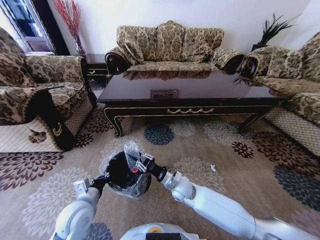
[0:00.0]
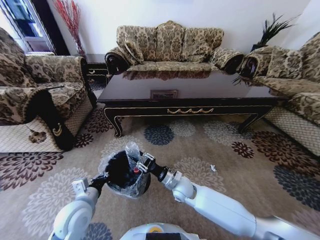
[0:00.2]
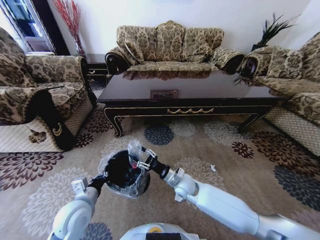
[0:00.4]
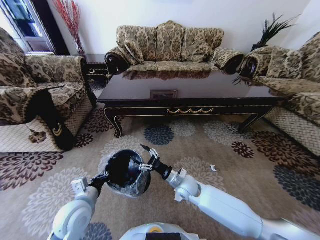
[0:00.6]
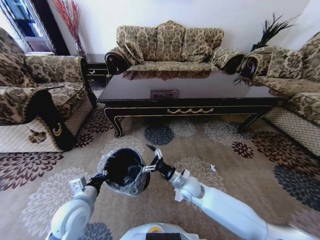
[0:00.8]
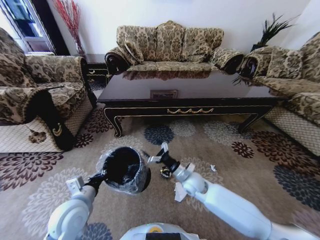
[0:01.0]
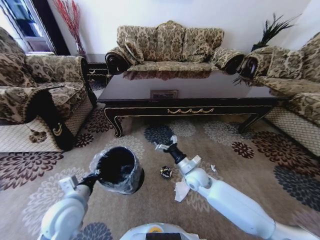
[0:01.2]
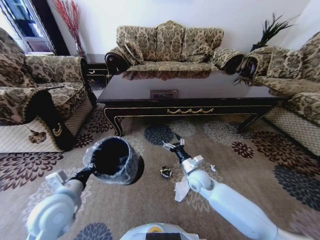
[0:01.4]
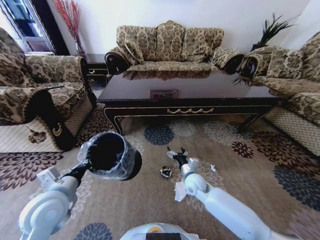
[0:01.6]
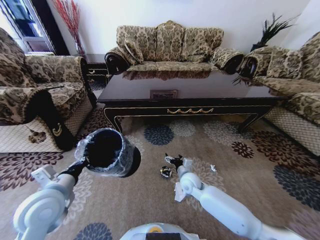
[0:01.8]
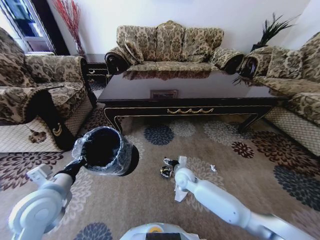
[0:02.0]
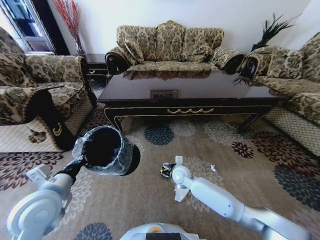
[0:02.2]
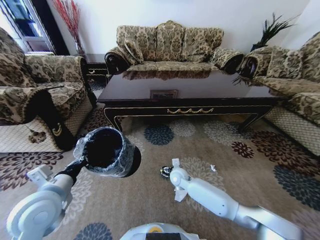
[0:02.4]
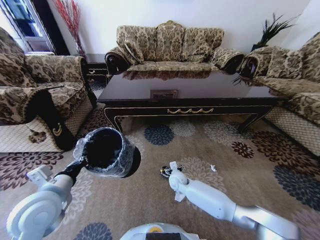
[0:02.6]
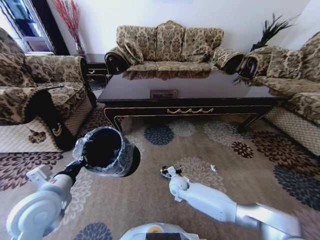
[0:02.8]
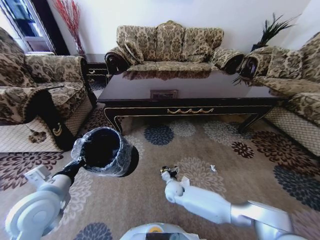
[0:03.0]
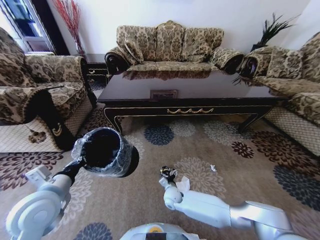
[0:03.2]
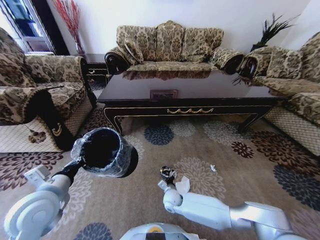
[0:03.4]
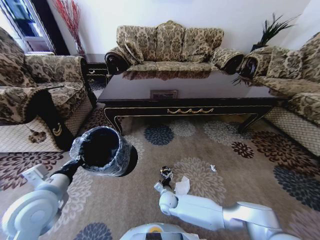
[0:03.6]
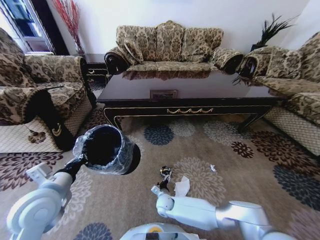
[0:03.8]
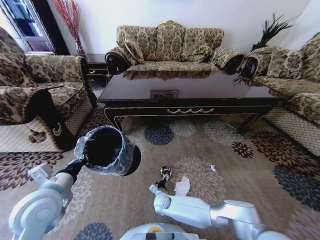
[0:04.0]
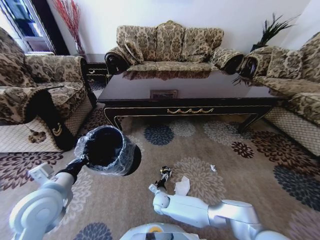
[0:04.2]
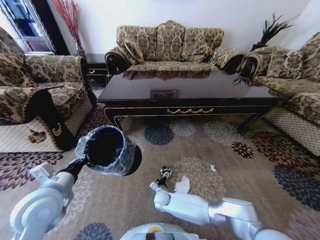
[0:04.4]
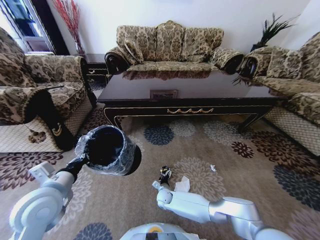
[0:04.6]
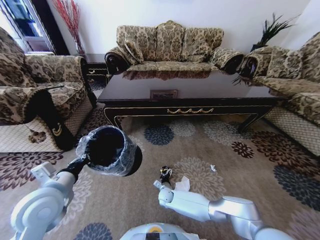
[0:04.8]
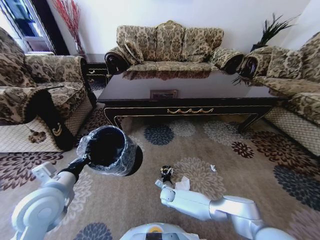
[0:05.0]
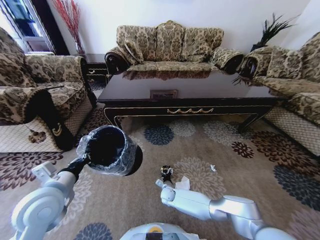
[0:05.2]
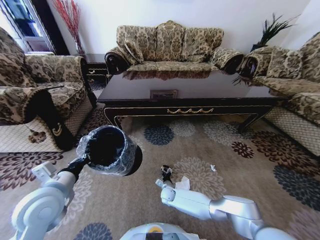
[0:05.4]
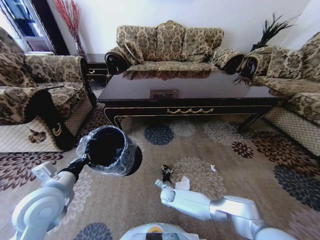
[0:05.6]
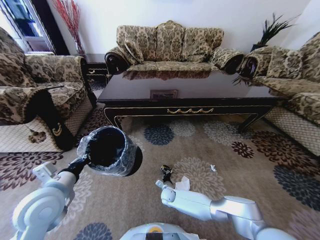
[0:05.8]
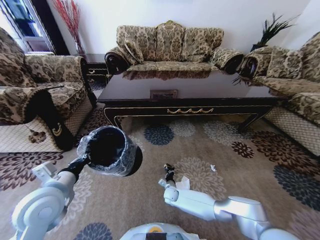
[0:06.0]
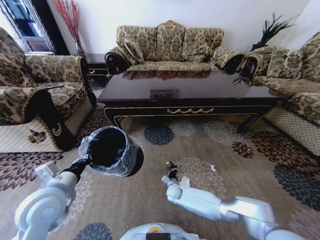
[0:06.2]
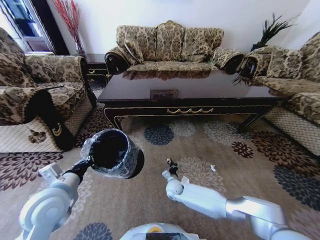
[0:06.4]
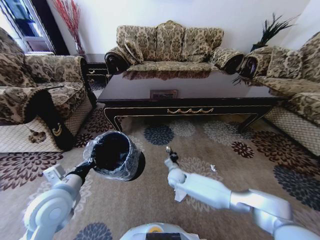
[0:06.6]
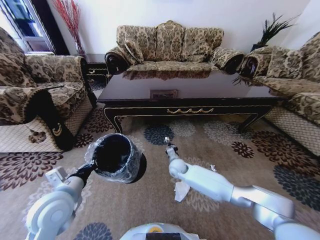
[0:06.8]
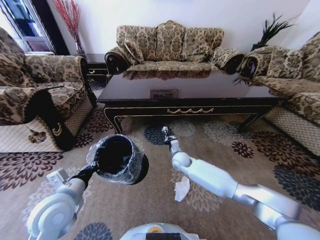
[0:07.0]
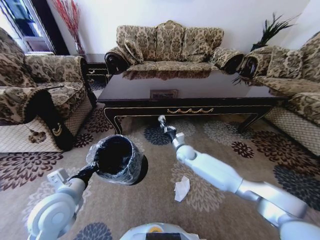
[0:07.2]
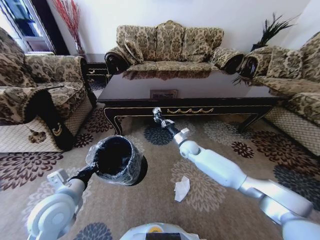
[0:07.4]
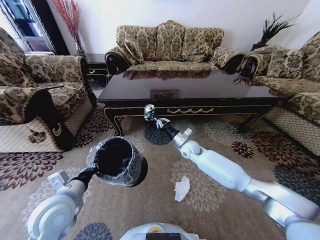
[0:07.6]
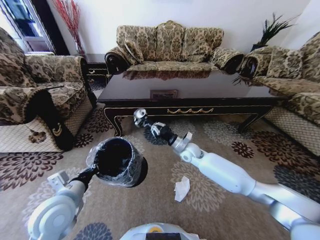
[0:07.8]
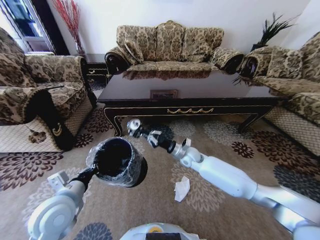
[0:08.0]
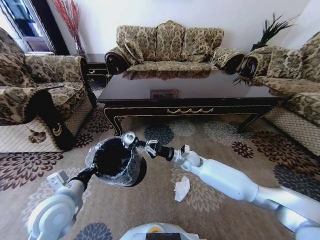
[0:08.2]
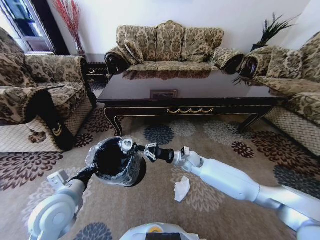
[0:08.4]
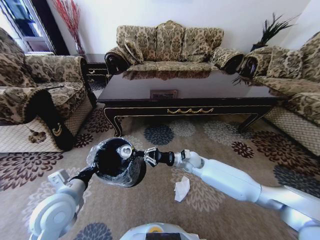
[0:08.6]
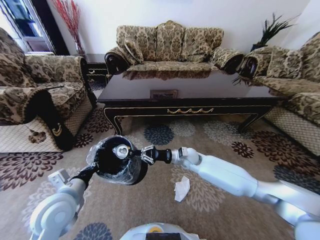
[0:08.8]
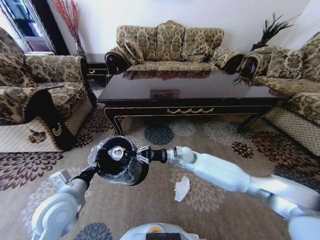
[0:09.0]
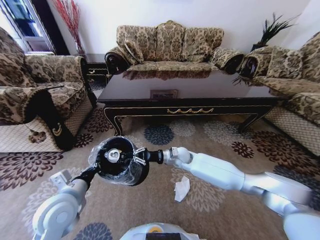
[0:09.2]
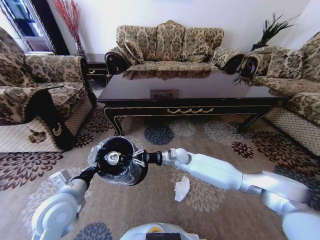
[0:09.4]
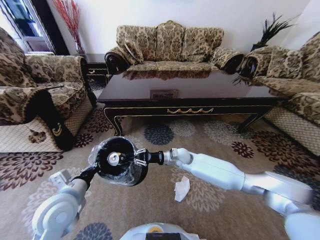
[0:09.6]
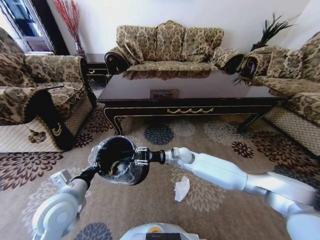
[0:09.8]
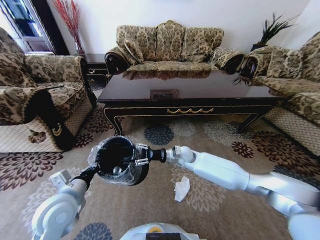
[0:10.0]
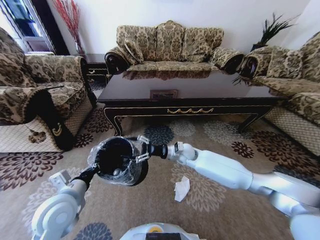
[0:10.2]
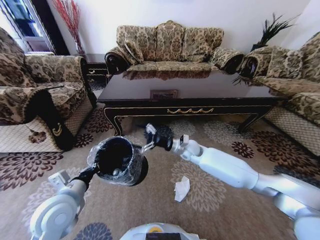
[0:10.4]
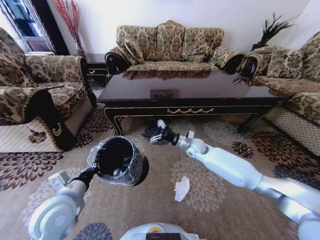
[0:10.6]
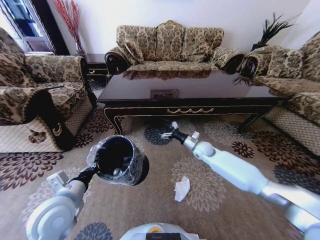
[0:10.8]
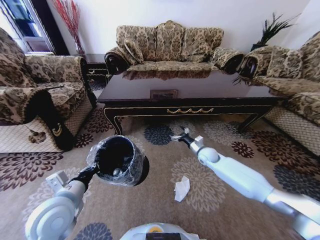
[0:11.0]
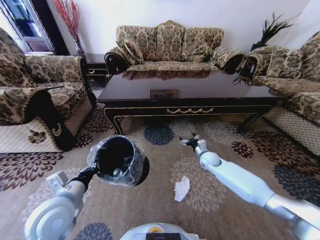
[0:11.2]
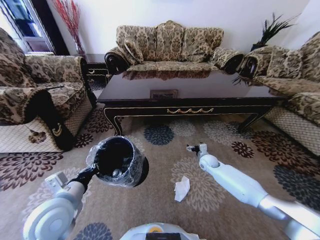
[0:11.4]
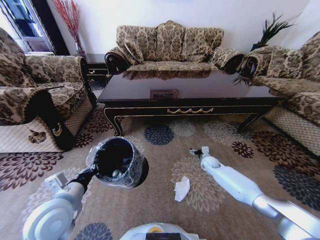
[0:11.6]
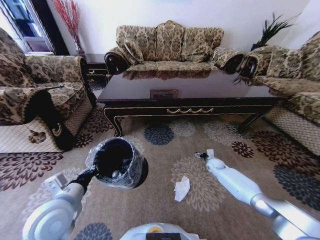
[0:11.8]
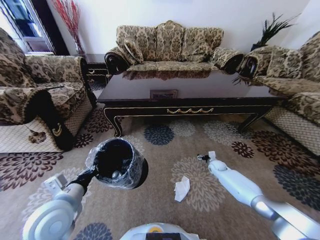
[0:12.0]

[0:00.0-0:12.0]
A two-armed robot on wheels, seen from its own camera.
Task of the whole recording: Move to the front of the table and pick up the trash from the floor, then place it into the trash bin.
0:00.0 to 0:01.6: The right gripper goes about 5 cm to the right, and opens; the left gripper is displaced upward by about 10 cm.
0:01.6 to 0:03.0: The right gripper is displaced downward and to the left by roughly 15 cm.
0:03.0 to 0:04.4: The right gripper travels downward and to the left by some 10 cm.
0:04.4 to 0:06.0: The right gripper goes some 5 cm to the right, and closes its fingers.
0:06.0 to 0:07.6: The right gripper is displaced upward and forward by roughly 30 cm.
0:07.6 to 0:09.0: The right gripper shifts by approximately 5 cm.
0:09.0 to 0:10.4: The right gripper opens its fingers.
0:10.4 to 0:12.0: The right gripper travels to the right and downward by about 35 cm.

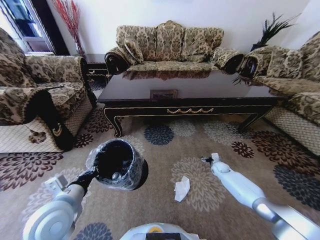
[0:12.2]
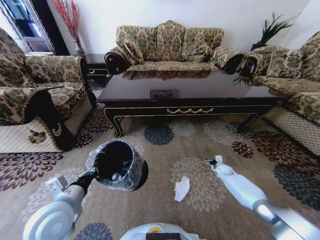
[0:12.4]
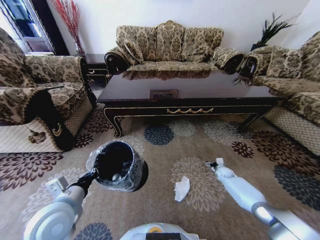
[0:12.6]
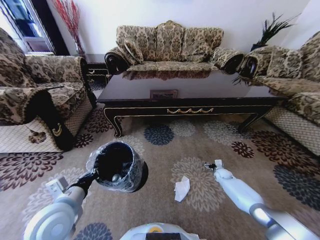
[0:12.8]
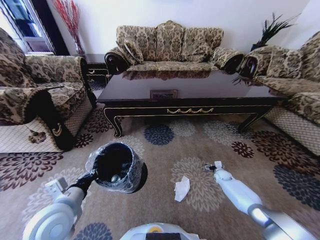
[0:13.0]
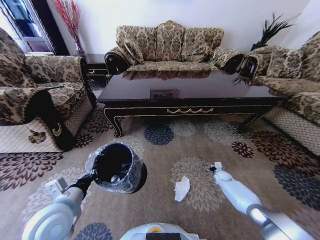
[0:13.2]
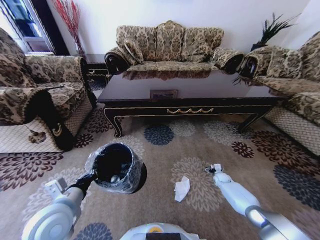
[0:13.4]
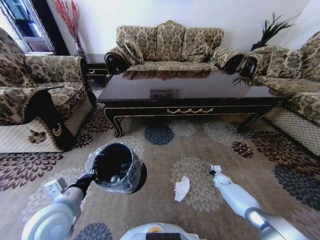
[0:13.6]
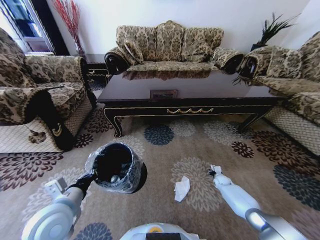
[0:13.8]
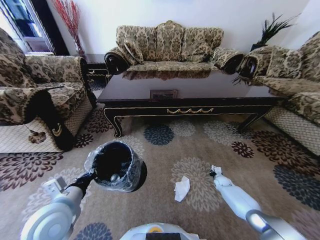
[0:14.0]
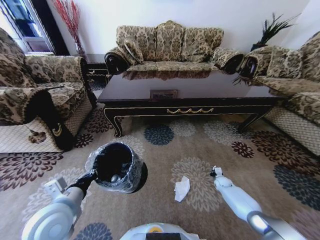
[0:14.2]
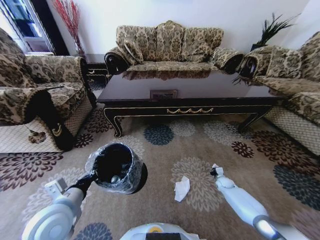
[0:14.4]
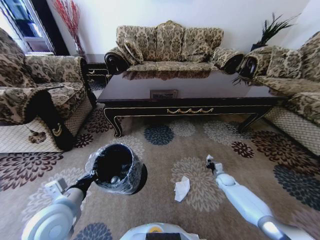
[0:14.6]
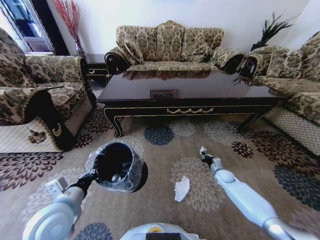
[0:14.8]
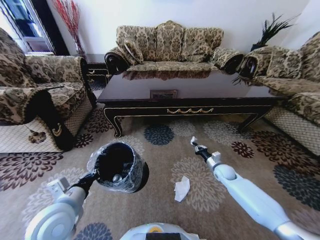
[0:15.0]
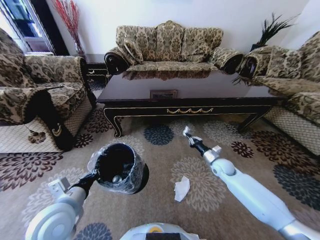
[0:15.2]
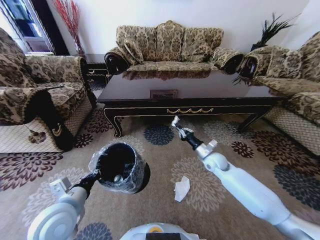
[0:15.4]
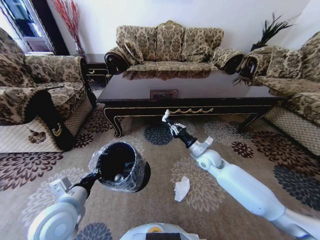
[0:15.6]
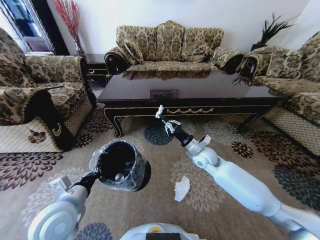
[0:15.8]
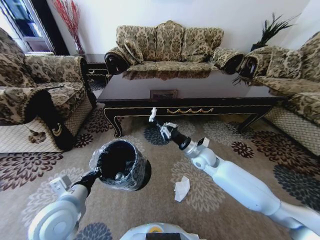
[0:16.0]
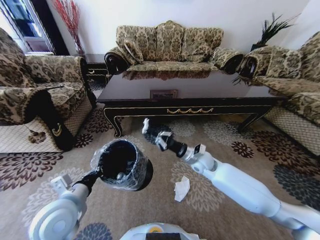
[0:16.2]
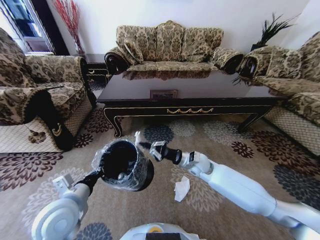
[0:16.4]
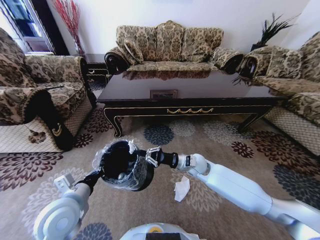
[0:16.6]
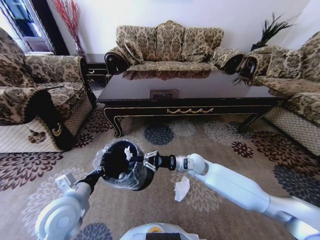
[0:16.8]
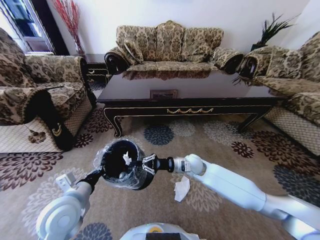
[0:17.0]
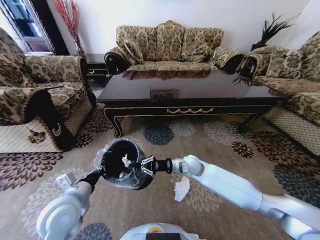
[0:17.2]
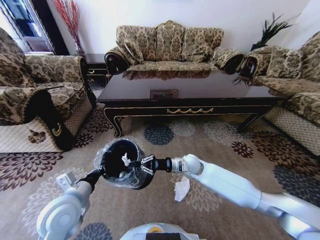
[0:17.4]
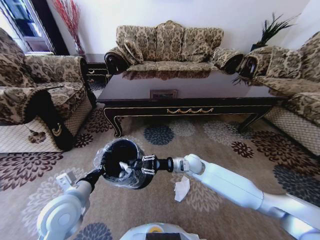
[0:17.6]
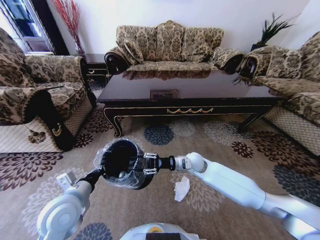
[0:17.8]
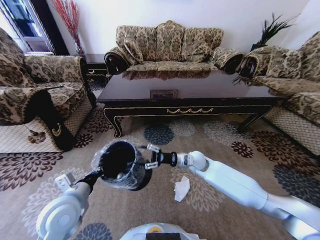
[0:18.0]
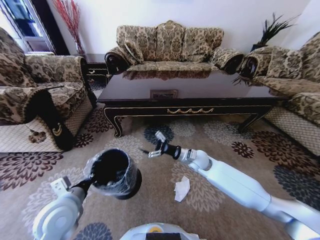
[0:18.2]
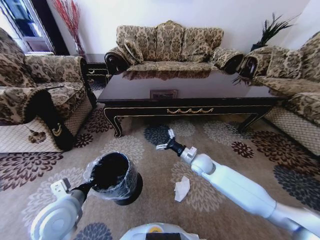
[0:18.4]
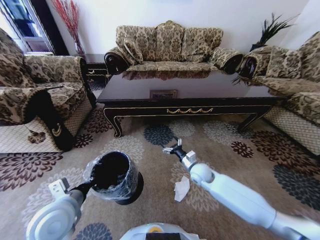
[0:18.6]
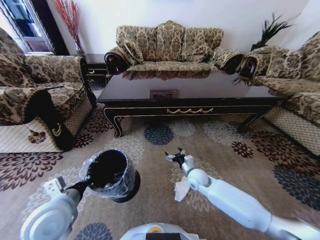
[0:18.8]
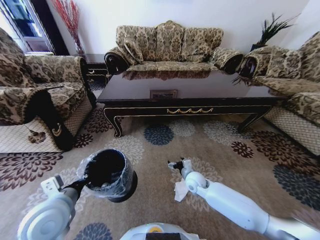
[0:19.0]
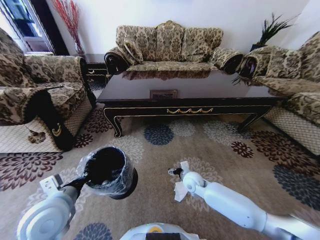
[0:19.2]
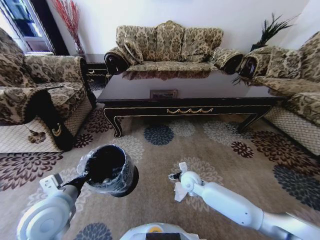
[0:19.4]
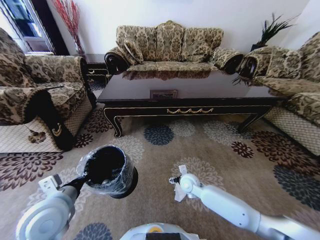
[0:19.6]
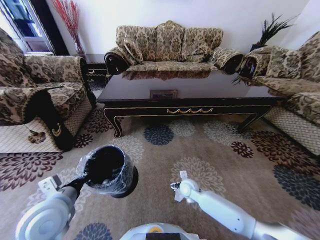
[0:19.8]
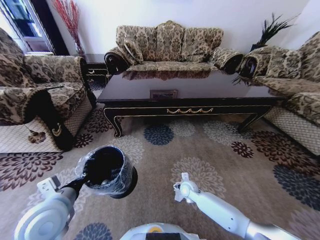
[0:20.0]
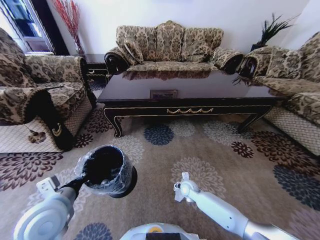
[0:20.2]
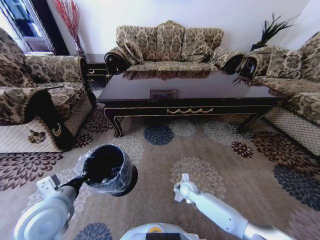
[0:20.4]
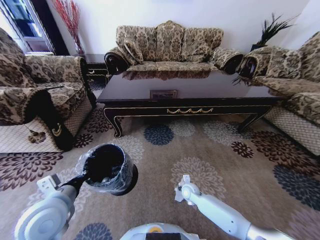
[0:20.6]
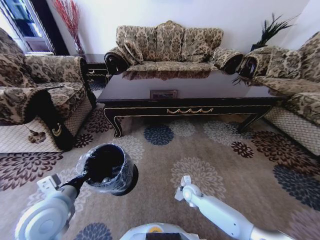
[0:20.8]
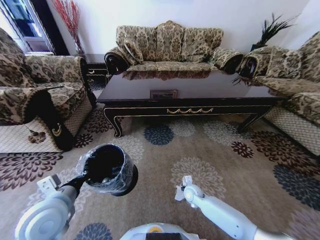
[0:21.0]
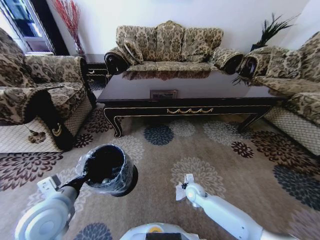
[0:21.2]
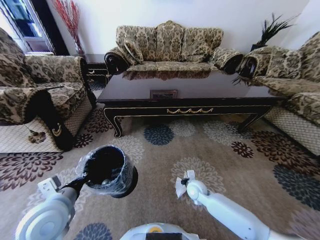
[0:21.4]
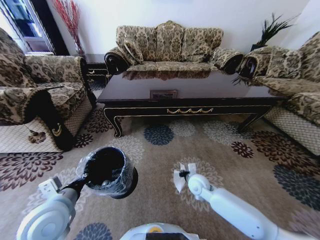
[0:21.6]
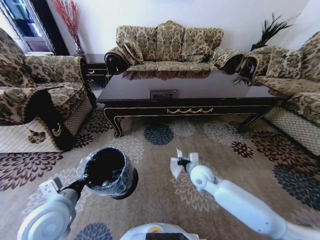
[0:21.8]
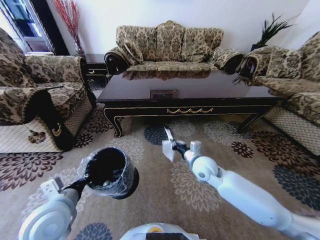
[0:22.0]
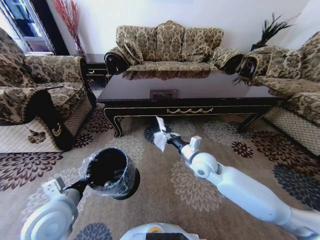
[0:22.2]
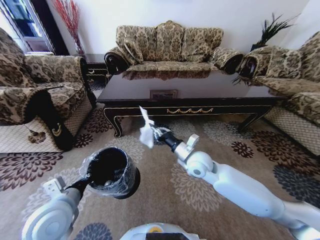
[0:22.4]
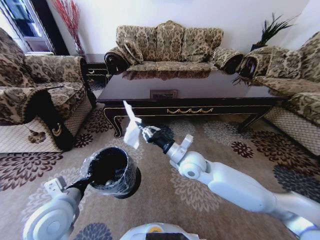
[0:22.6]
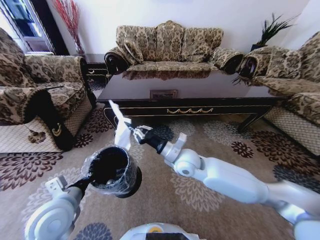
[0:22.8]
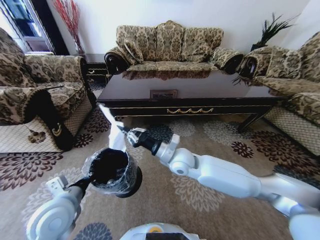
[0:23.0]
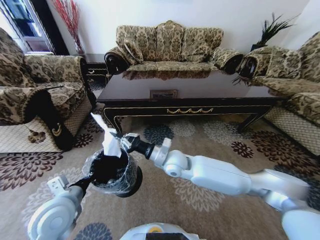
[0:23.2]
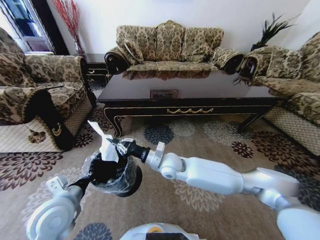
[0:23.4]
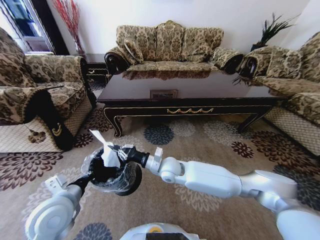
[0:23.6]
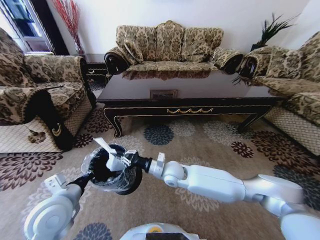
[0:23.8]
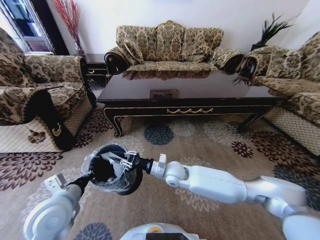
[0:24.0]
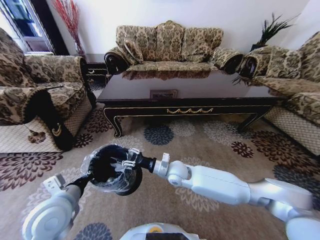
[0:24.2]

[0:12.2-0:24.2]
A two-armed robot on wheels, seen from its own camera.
Task of the whole recording: Move to the front of the table and pick up the trash from the floor, then place it into the trash bin.
0:12.2 to 0:13.8: The right gripper goes some 10 cm downward and backward, and closes its fingers.
0:13.8 to 0:15.2: The right gripper moves upward and to the left, about 25 cm, and closes.
0:15.2 to 0:16.6: The right gripper shifts approximately 15 cm to the left.
0:16.6 to 0:18.2: The right gripper opens.
0:18.2 to 0:19.8: The right gripper travels downward and backward by some 15 cm.
0:19.8 to 0:21.2: The right gripper closes up.
0:21.2 to 0:22.6: The right gripper goes about 25 cm upward.
0:22.6 to 0:24.2: The right gripper is displaced downward and to the left by roughly 10 cm, and opens its fingers.
